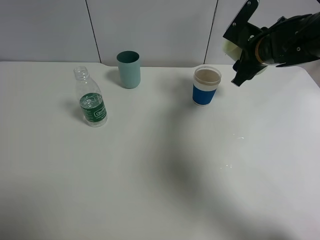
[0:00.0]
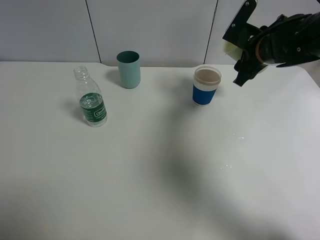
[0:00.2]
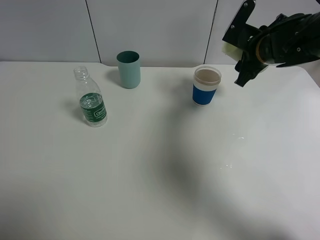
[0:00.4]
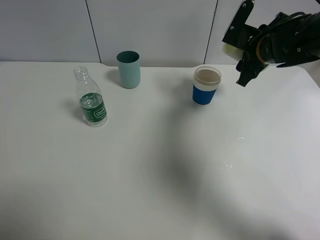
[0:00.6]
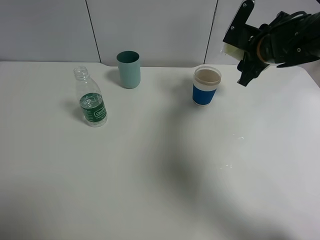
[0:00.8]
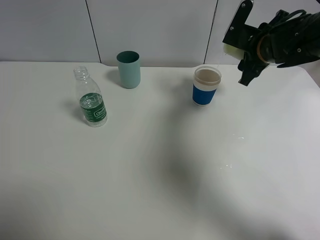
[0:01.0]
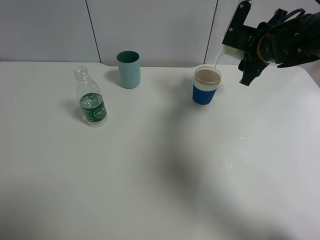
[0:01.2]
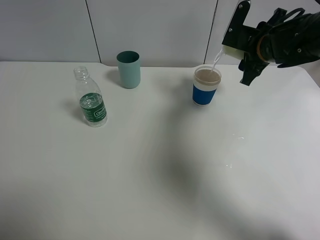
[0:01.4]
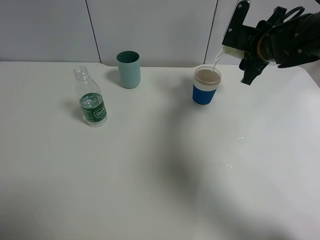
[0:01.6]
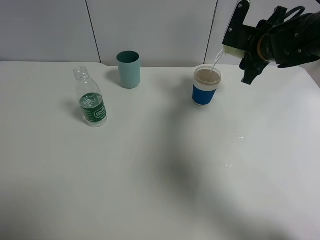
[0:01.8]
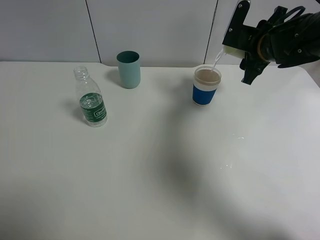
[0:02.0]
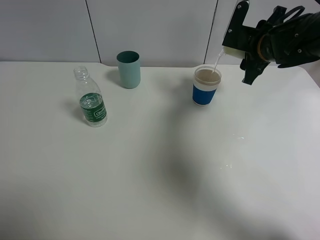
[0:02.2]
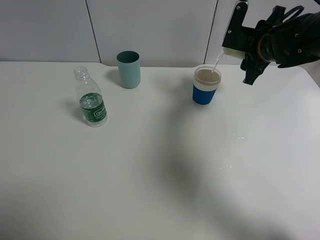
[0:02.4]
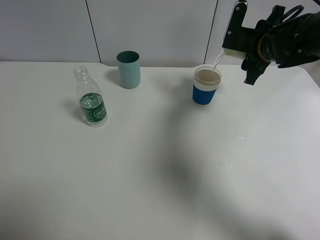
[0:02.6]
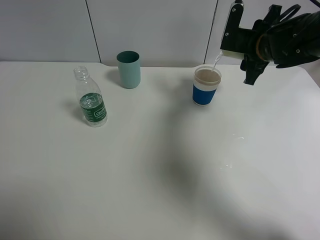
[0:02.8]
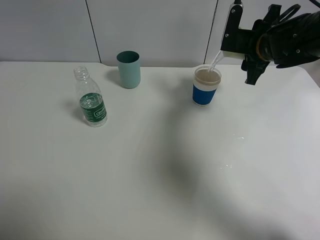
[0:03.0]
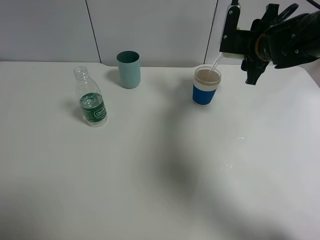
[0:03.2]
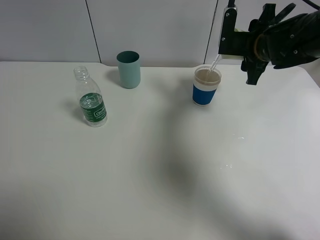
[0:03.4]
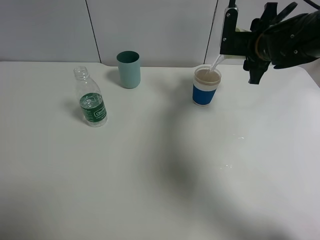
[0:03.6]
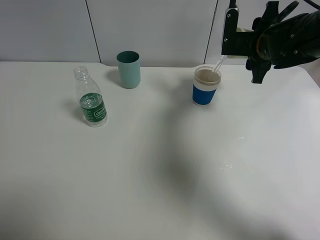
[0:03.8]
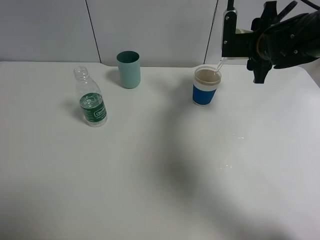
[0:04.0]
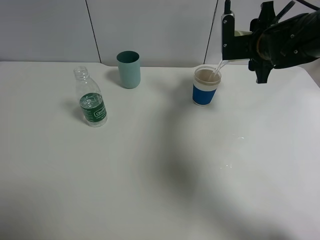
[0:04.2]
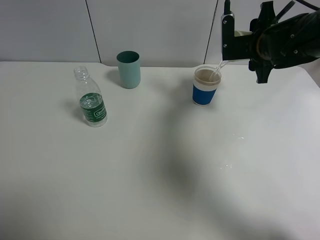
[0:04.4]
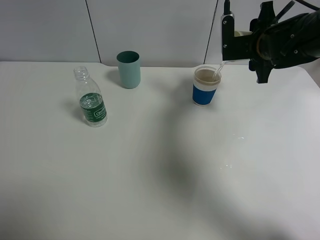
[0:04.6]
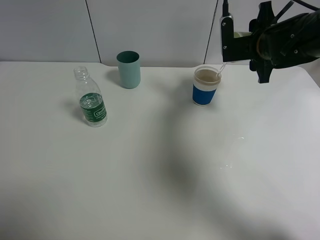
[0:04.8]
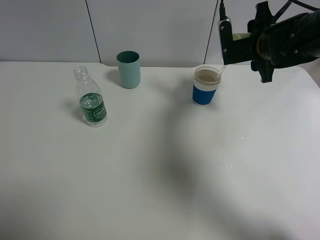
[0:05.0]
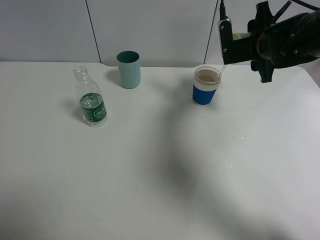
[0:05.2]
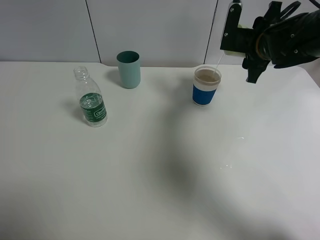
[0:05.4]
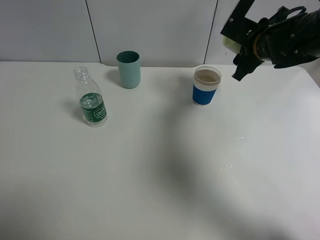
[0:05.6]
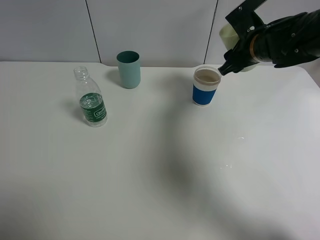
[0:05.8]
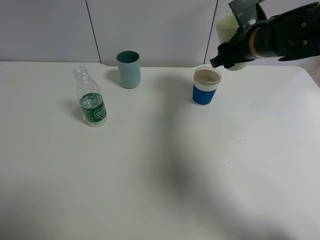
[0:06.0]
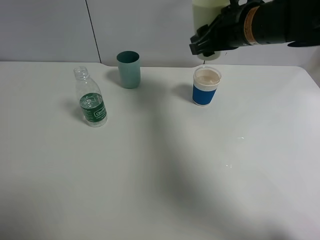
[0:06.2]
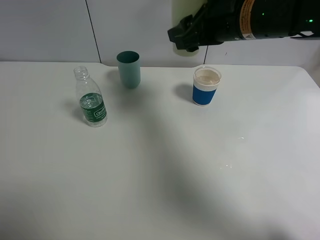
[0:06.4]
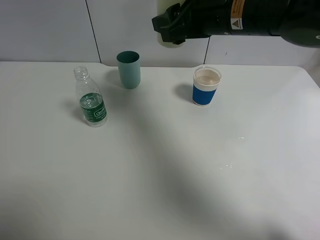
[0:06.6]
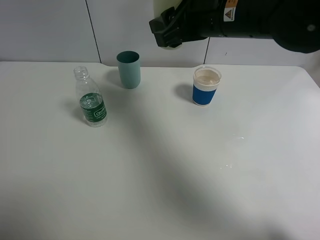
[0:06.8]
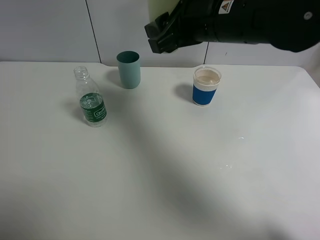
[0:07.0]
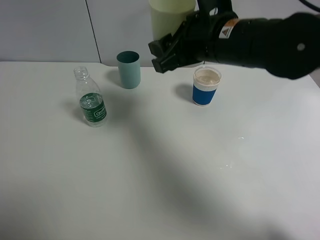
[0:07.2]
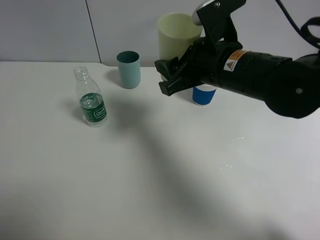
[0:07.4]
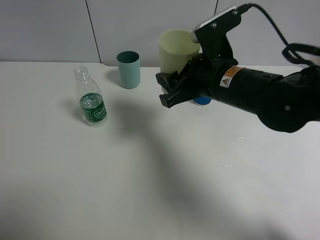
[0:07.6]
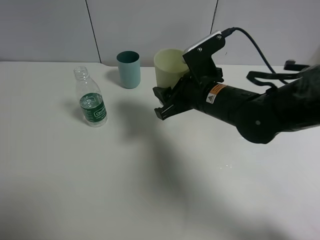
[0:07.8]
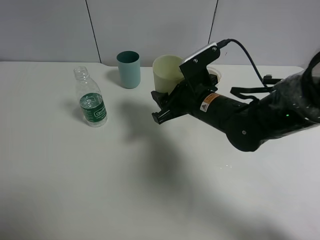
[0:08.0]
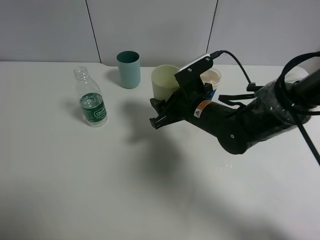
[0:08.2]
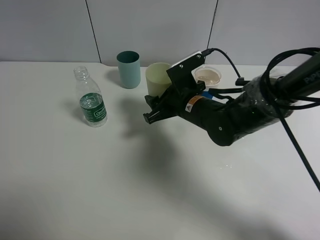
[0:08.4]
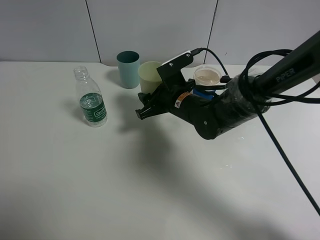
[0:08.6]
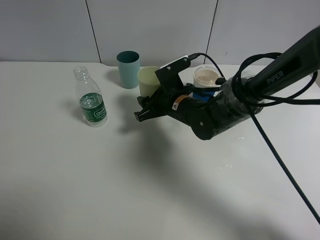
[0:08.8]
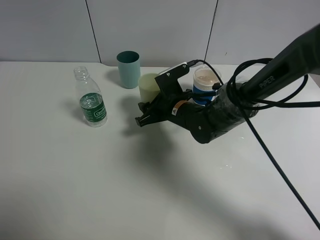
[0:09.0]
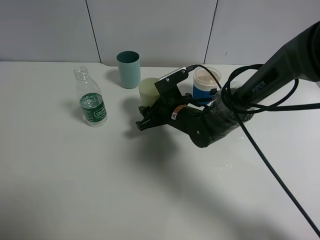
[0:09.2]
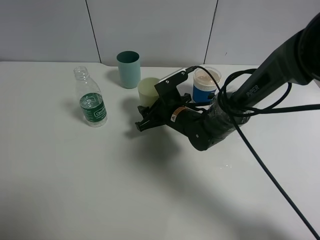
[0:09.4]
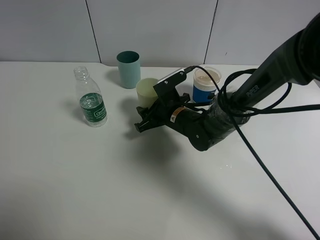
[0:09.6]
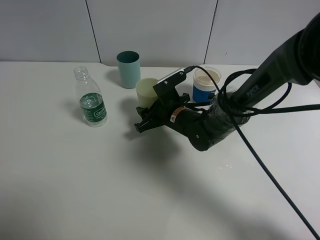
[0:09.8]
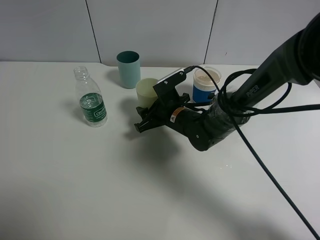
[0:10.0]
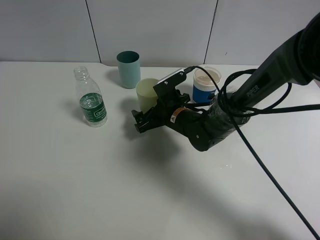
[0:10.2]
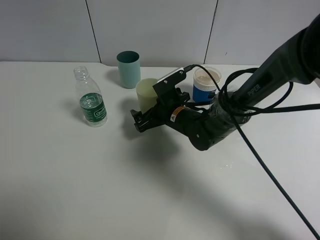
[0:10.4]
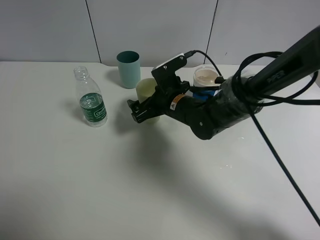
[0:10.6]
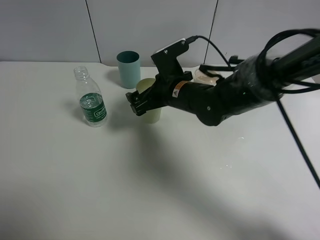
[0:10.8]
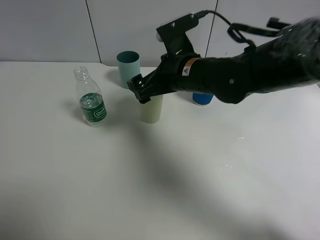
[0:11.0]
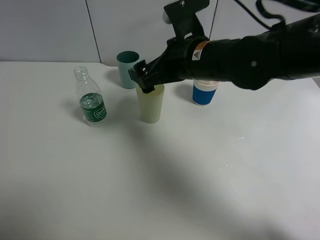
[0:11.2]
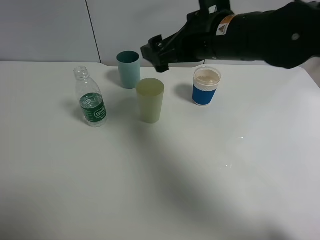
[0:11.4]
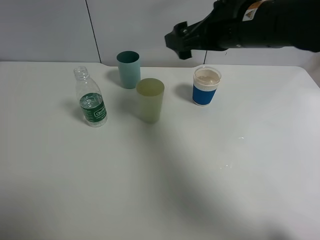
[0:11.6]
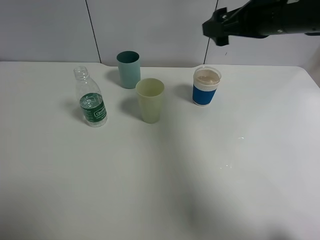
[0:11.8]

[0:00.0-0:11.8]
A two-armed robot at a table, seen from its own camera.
Task of the whole recording: use a clamp to hold the bottle of the drink, pour the beverage into a random cup, then clamp the cup containing the drink and pour the drink into another random cup.
Step, 0:00.0 to 0:05.6: Pour water into the paper cup with right gripper.
Step, 0:05.8 to 0:11.0: Place the green plastic cup on the table with right gripper.
0:00.0 to 0:01.4: There are only small adjustments of the grippers.
0:01.4 to 0:03.0: The grippers make only small movements.
0:03.0 to 0:04.4: There are only small adjustments of the grippers.
0:06.0 to 0:07.4: The right gripper shifts about 15 cm backward and to the left.
0:07.4 to 0:08.8: The right gripper moves downward and forward, roughly 15 cm.
0:08.8 to 0:10.4: The right gripper opens its fingers.
0:10.4 to 0:11.8: The right gripper moves upward and to the right, about 25 cm.

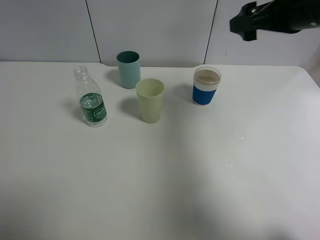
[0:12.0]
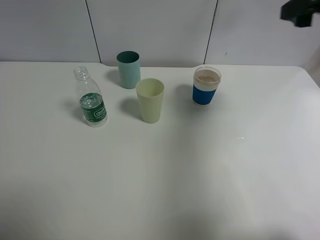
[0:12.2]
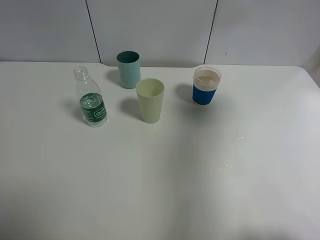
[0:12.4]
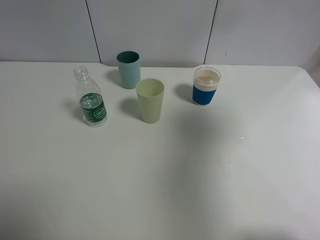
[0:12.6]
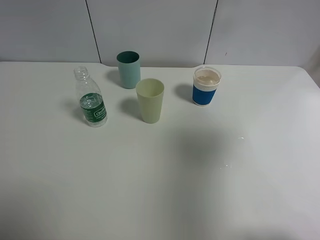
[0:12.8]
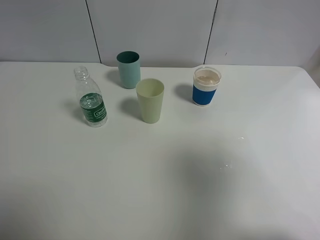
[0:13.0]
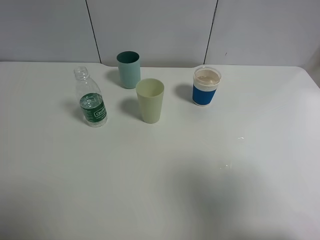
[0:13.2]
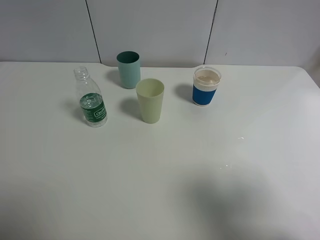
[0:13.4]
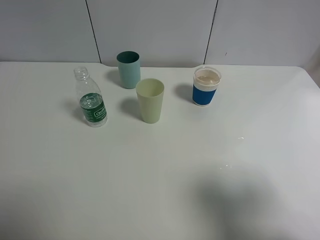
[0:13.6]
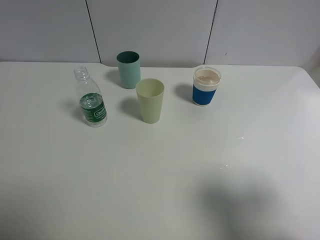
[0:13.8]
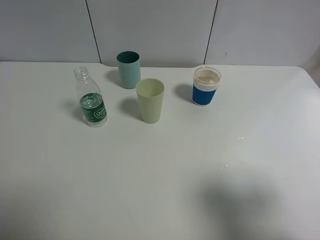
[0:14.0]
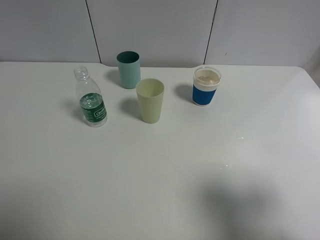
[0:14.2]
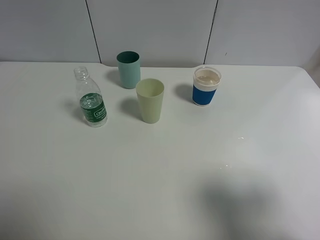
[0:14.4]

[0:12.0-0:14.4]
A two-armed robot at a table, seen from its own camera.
Task of the whole recording: use a clamp to hold the bottle of the drink, pour the beverage into a random cup, then clamp the cup containing the drink and pour the drink into another random cup.
0:12.0 to 0:13.2: The right gripper moves backward, approximately 30 cm.
0:13.2 to 0:14.4: The right gripper heads downward, covering some 10 cm.
